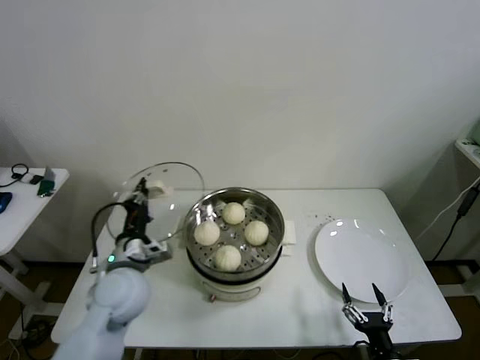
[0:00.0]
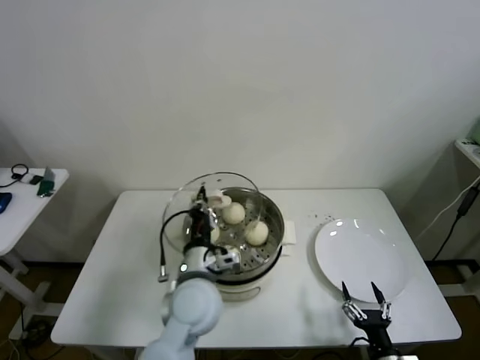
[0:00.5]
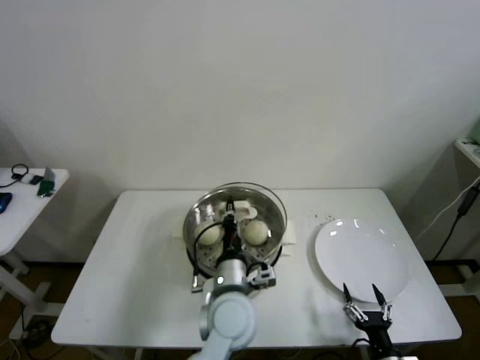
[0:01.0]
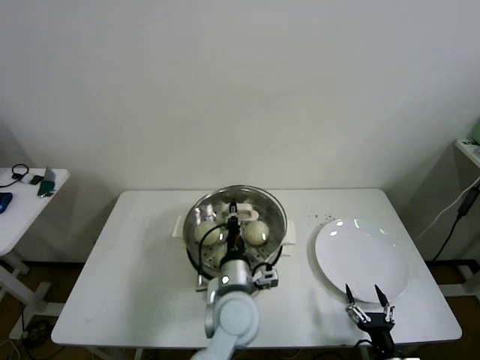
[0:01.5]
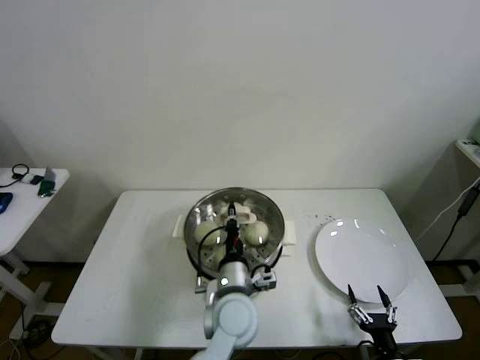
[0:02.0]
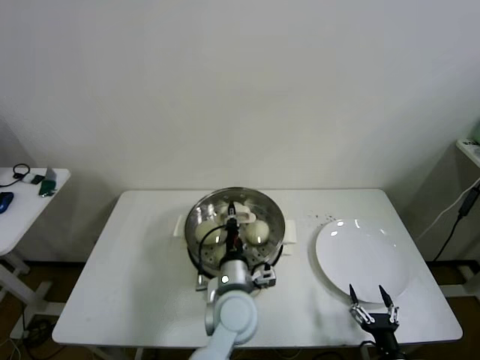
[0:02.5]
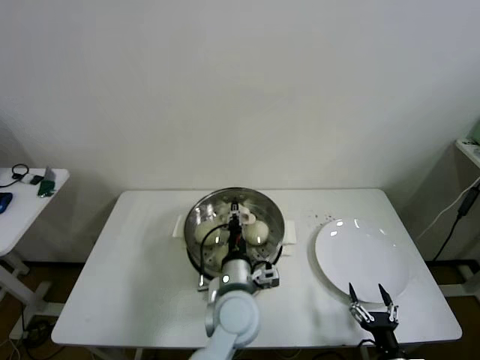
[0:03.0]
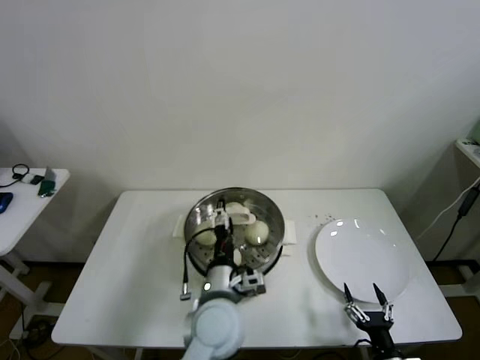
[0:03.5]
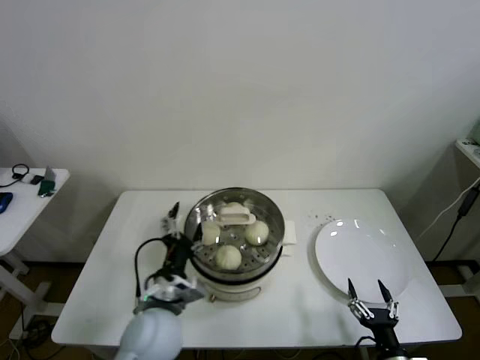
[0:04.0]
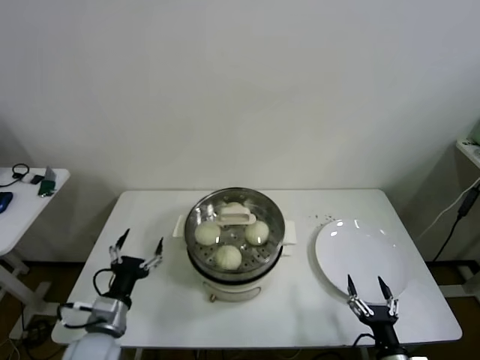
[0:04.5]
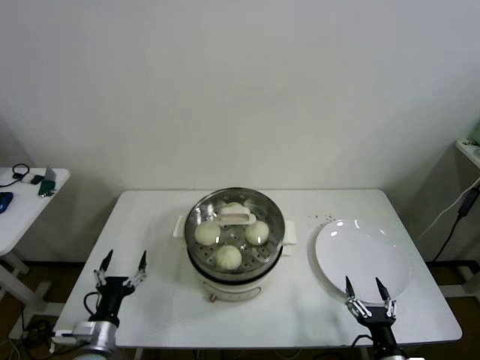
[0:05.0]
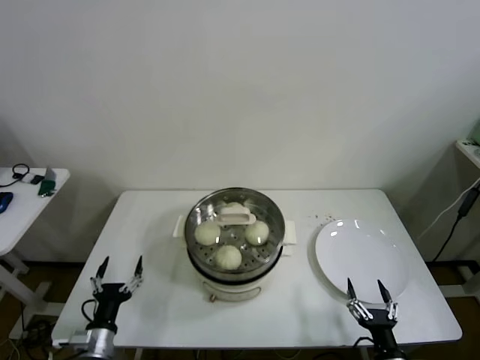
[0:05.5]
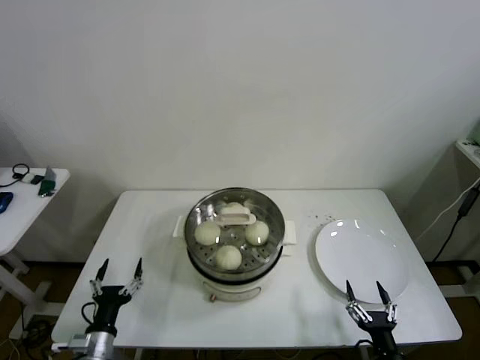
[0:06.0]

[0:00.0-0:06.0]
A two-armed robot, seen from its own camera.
Step, 0:00.0 to 0:03.0: Place the pot lid on the steamer with left gripper.
0:00.0 to 0:02.0: The left gripper shifts some 25 cm to the right.
0:02.0 to 0:04.0: The left gripper is displaced to the left by about 10 cm, and opens.
0:04.0 to 0:06.0: The left gripper shifts roughly 25 cm to the left and downward.

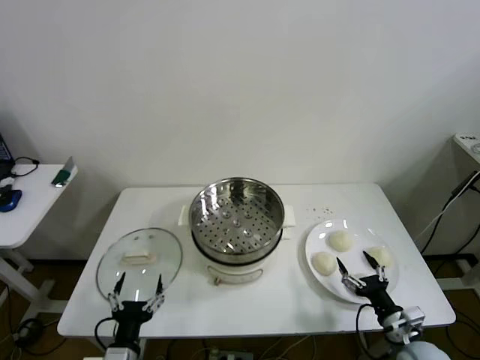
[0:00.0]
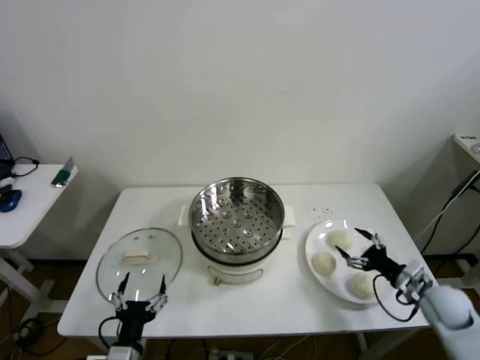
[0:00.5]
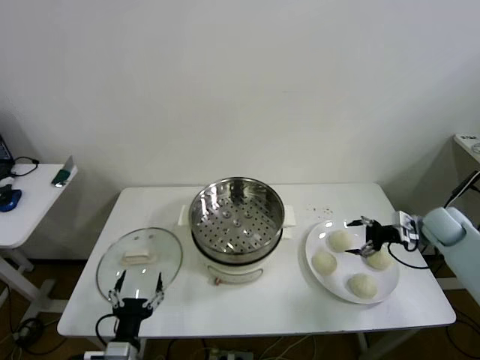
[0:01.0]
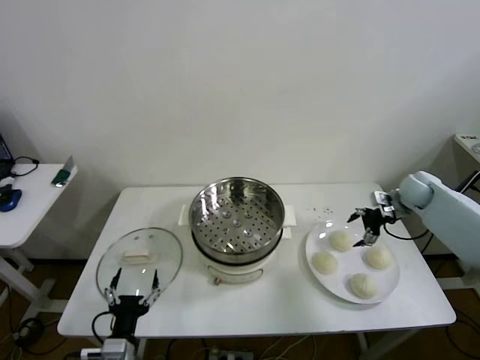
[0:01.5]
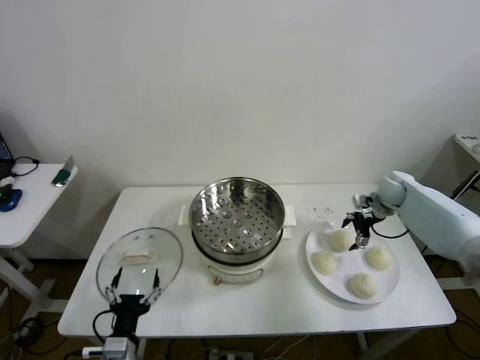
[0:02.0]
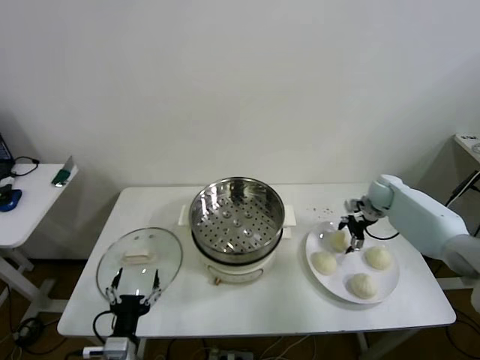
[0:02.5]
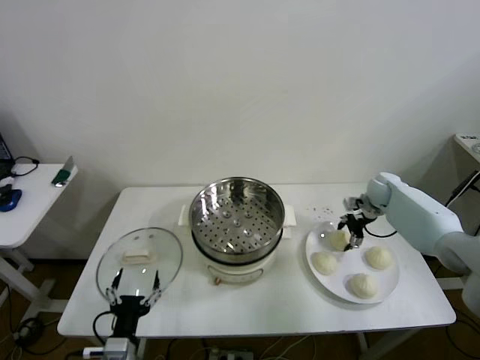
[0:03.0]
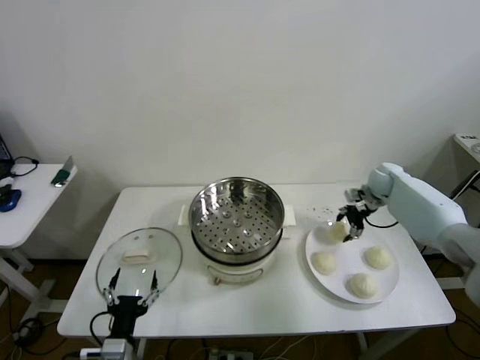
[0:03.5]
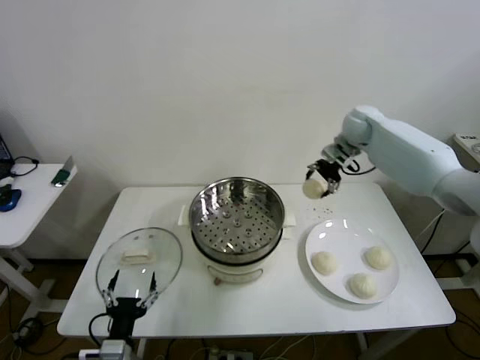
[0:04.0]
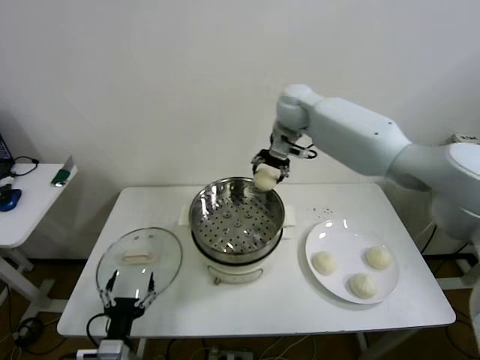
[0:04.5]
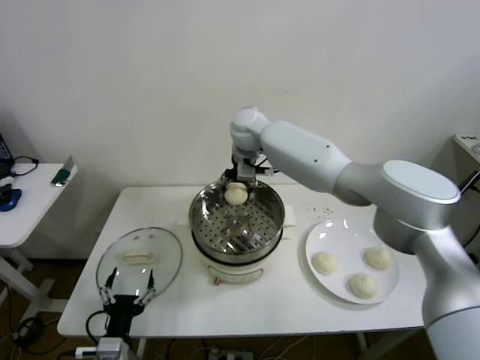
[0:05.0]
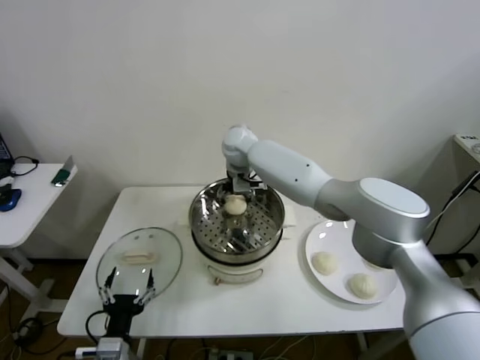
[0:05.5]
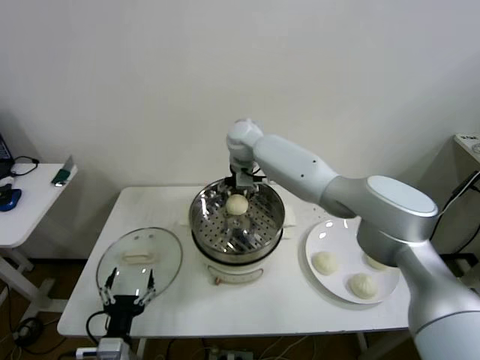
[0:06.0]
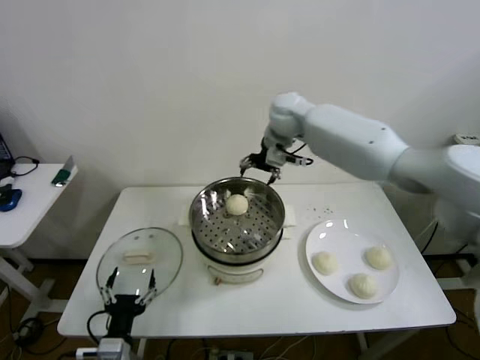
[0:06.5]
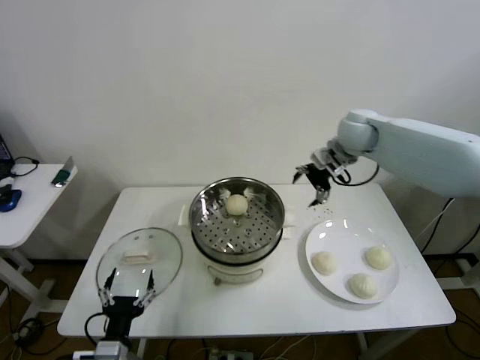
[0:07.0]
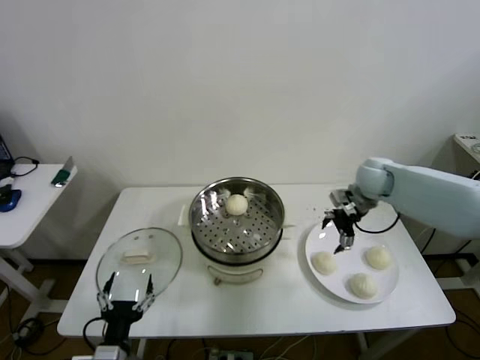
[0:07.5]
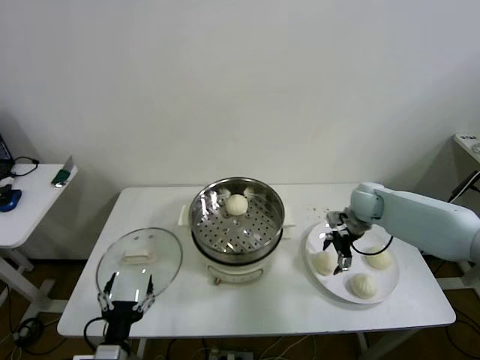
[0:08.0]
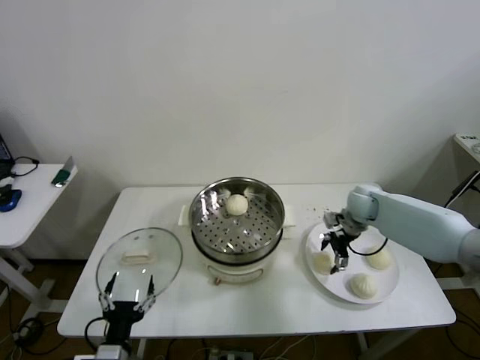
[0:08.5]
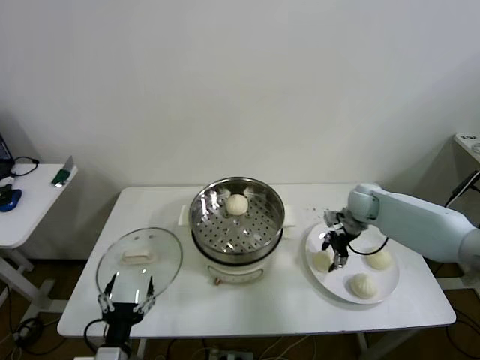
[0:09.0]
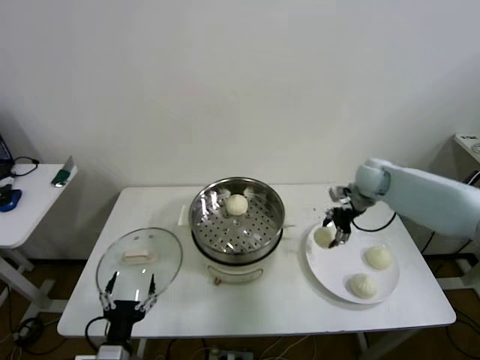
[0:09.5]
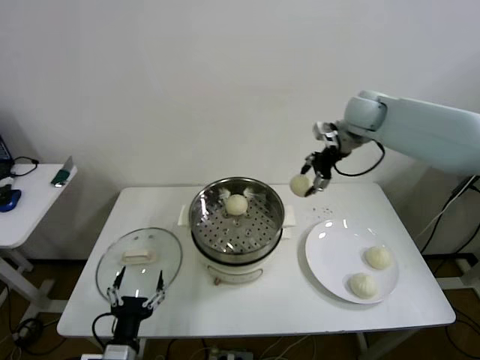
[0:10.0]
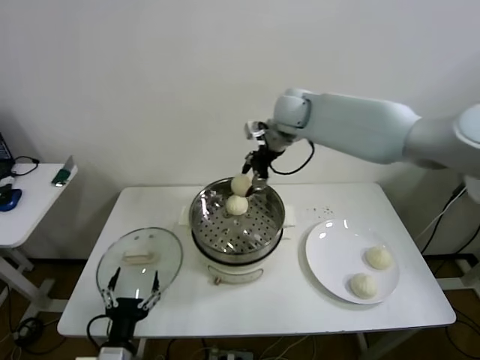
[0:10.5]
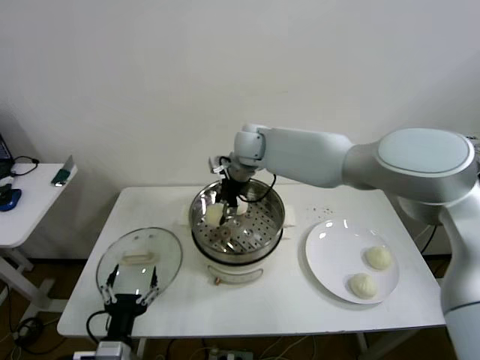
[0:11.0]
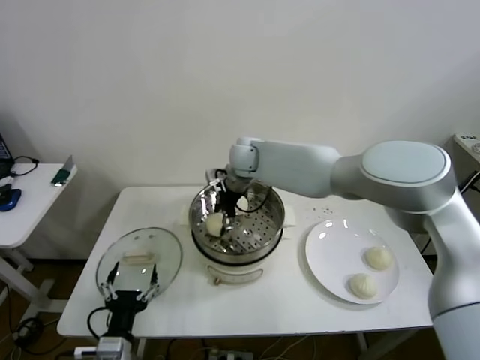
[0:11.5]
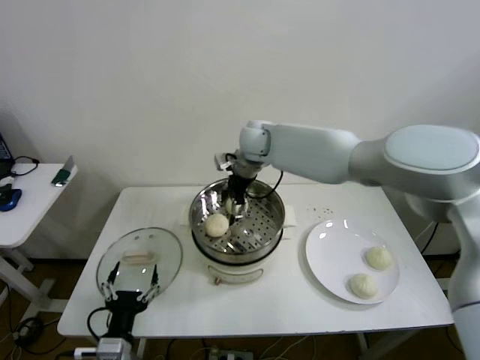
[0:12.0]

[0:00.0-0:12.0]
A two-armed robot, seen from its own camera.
Step, 0:00.0 to 0:03.0: Grasp the baozi in the plate with right gripper.
Step, 0:03.5 to 0:06.0: Place the baozi on the steamer with right gripper.
Step, 0:06.5 to 0:09.0: Grasp the baozi in the plate with right gripper.
Step, 0:09.5 to 0:12.0: Place the baozi on the steamer with right gripper.
0:02.0 to 0:04.0: The right gripper shifts roughly 25 cm upward and to the left, and closes.
0:04.0 to 0:06.0: The right gripper goes roughly 25 cm to the left, and opens up.
0:06.0 to 0:08.0: The right gripper goes approximately 35 cm to the right and downward.
0:08.0 to 0:10.0: The right gripper moves upward, about 25 cm, and closes its fingers.
0:10.0 to 0:12.0: The right gripper heads to the left, covering some 20 cm, and opens its fingers.

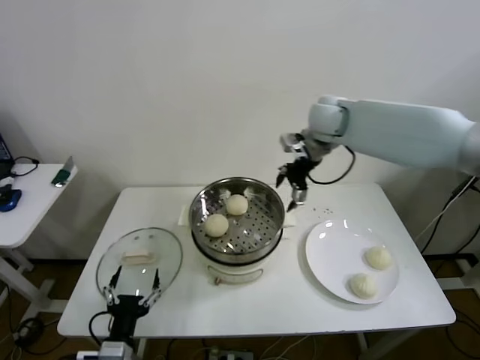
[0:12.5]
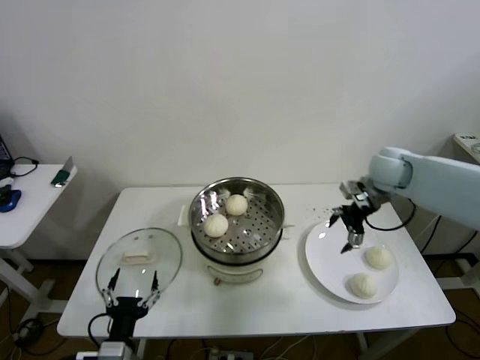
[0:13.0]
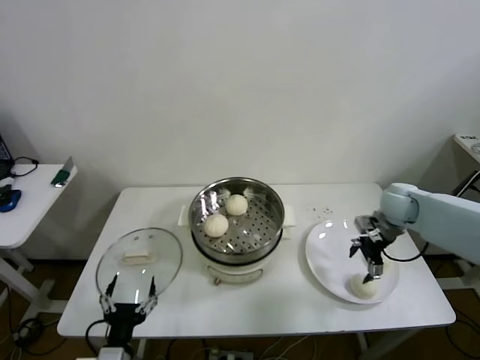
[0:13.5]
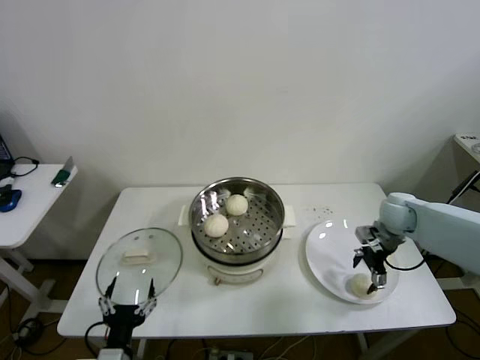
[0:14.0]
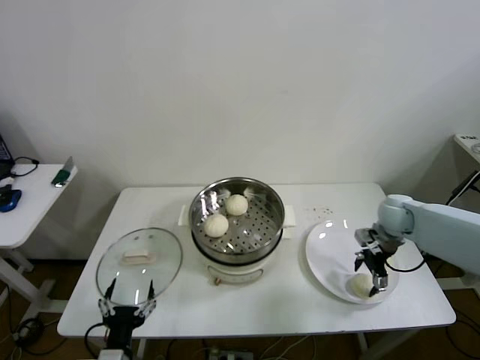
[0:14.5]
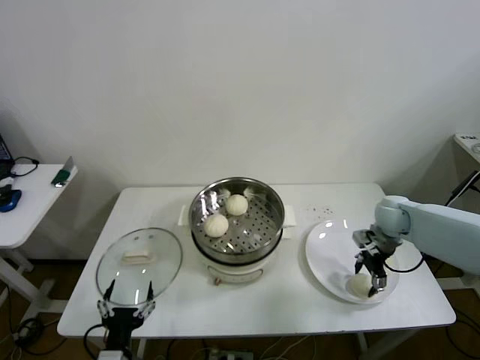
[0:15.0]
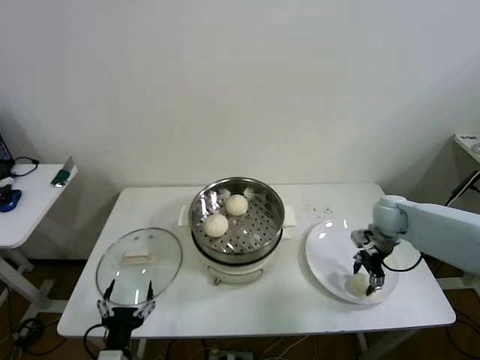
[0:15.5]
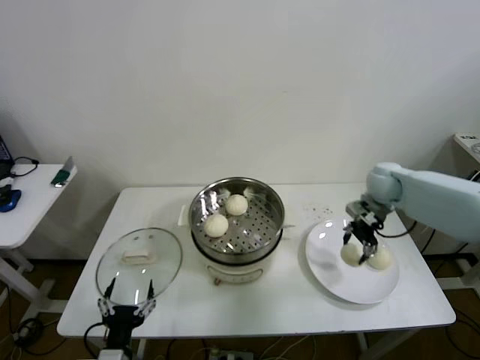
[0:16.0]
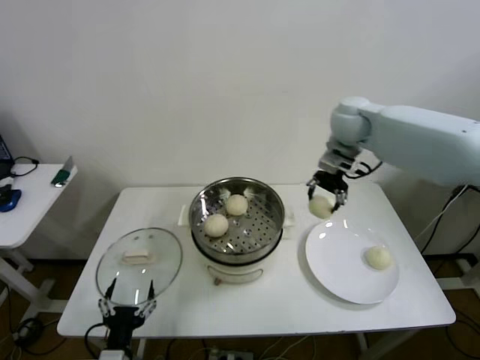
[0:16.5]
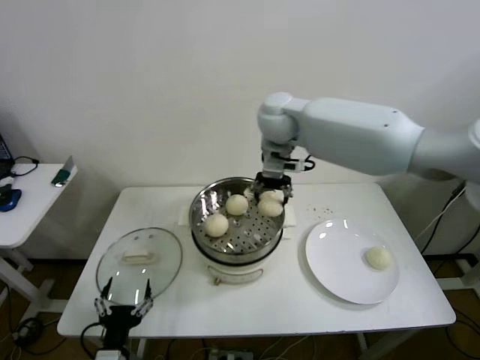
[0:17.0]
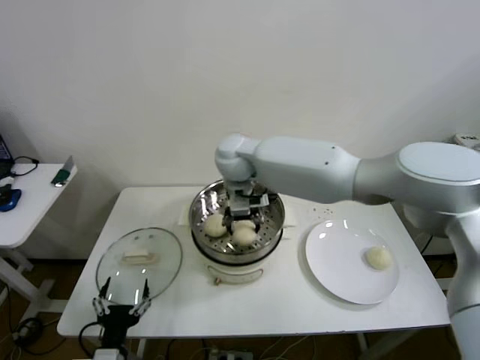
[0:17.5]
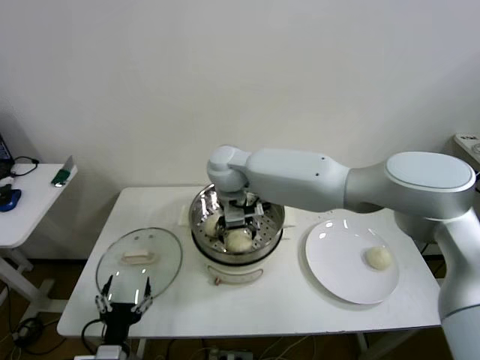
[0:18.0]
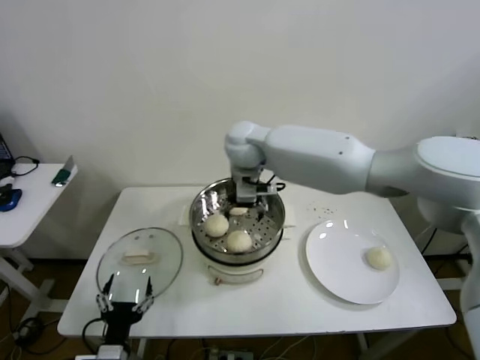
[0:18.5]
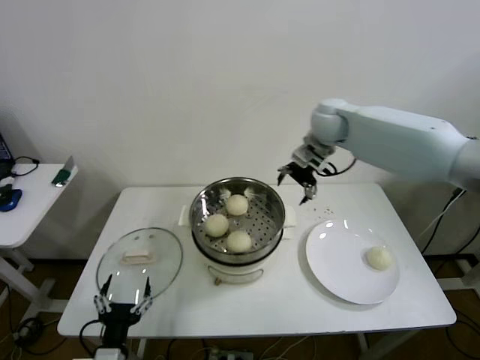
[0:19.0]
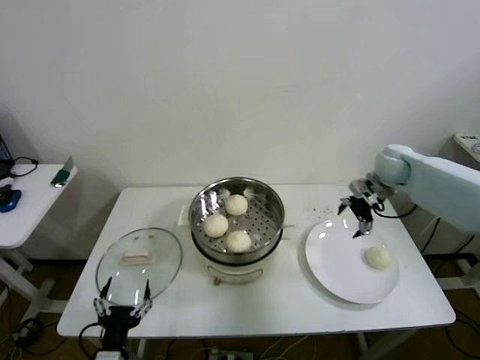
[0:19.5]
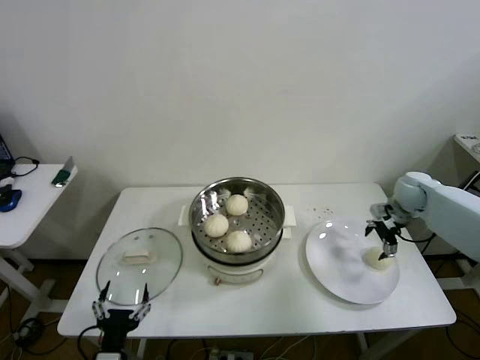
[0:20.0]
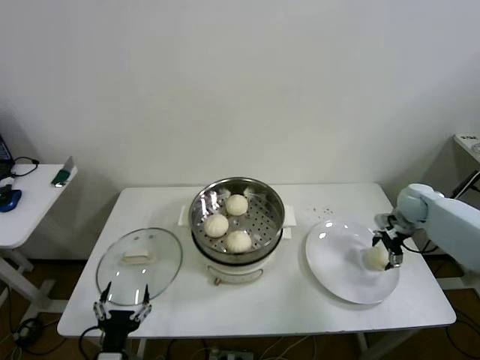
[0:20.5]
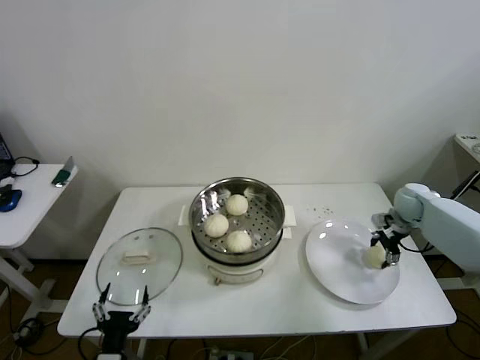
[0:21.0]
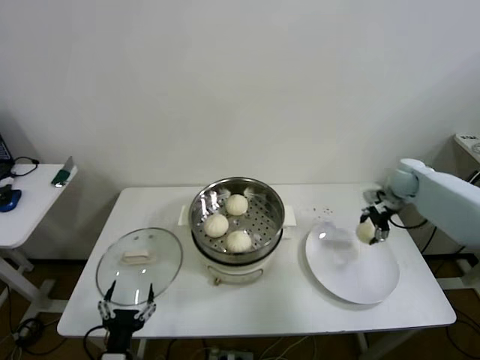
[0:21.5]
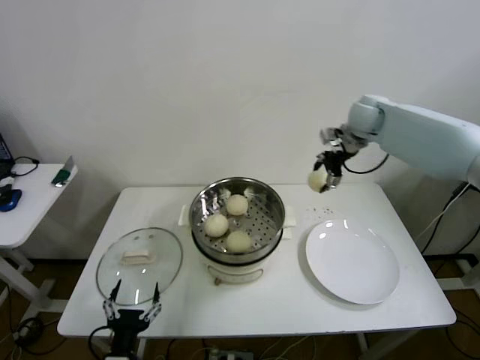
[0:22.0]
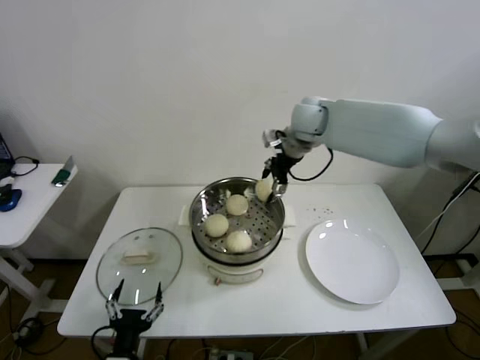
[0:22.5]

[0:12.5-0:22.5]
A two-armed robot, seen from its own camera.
Step, 0:12.5 to 0:14.5: Grasp the baozi in the plate with right gripper.
Step, 0:15.5 to 0:18.0: Place the baozi on the steamer with right gripper.
Step, 0:18.5 to 0:20.5: Grasp the baozi in the plate with right gripper.
0:12.5 to 0:14.5: The right gripper heads downward and to the right, covering roughly 30 cm.
0:14.5 to 0:16.5: The right gripper moves upward and to the left, roughly 30 cm, and closes its fingers.
0:16.5 to 0:18.5: The right gripper shifts approximately 20 cm to the left, and opens.
0:18.5 to 0:20.5: The right gripper travels to the right and downward by roughly 50 cm.
0:20.5 to 0:22.5: The right gripper goes roughly 40 cm to the left and upward, and closes.
